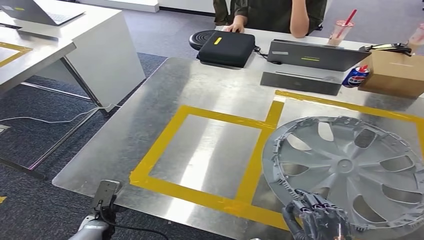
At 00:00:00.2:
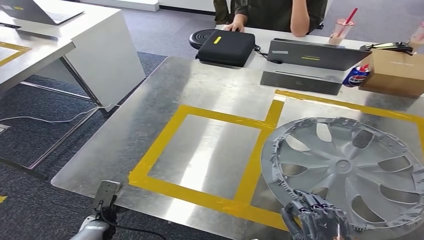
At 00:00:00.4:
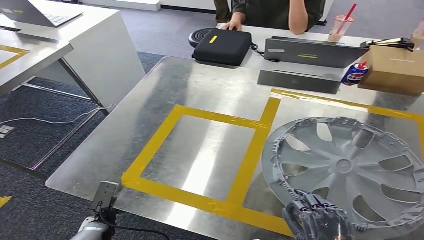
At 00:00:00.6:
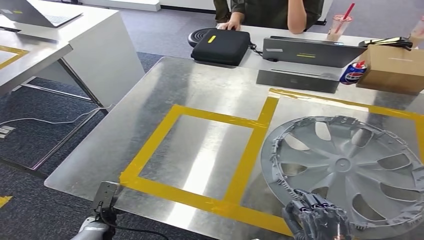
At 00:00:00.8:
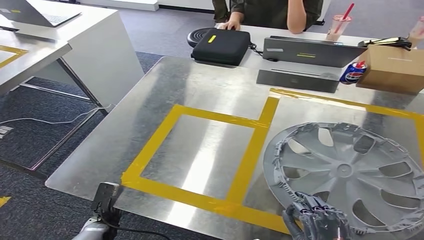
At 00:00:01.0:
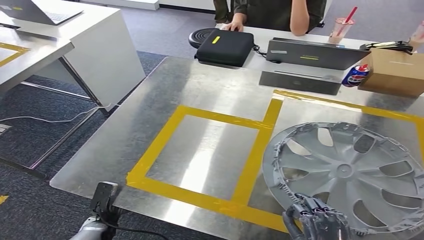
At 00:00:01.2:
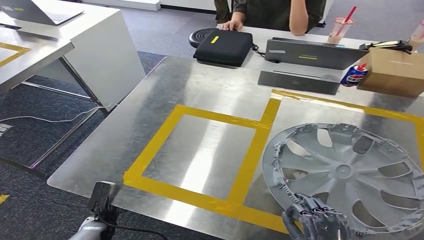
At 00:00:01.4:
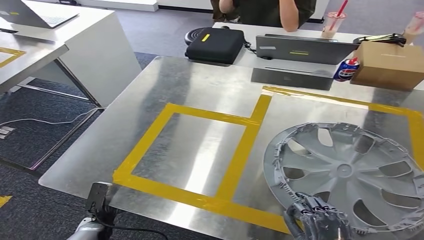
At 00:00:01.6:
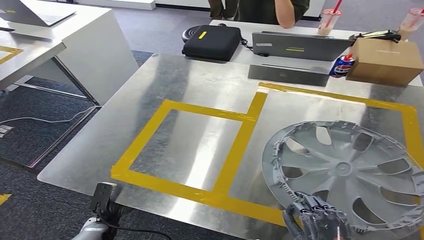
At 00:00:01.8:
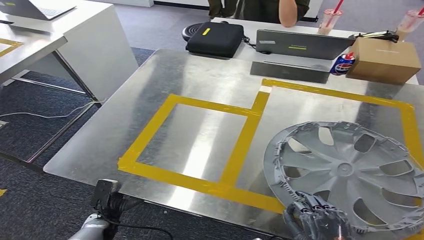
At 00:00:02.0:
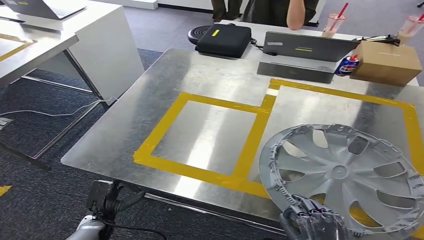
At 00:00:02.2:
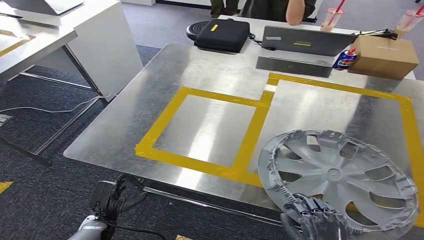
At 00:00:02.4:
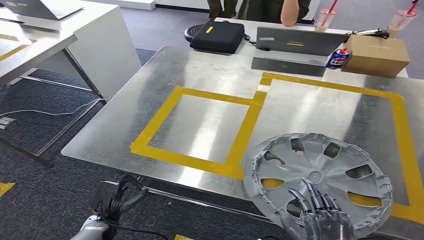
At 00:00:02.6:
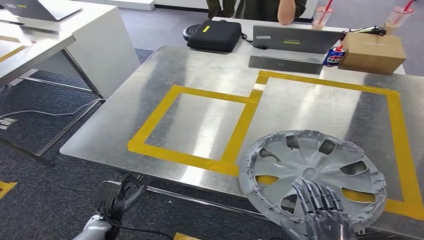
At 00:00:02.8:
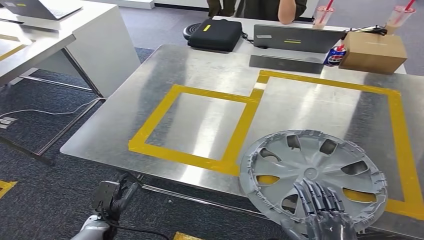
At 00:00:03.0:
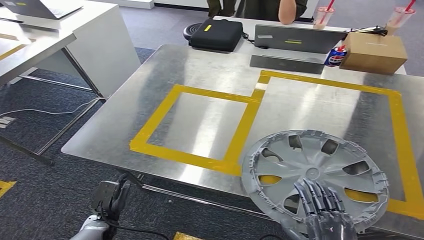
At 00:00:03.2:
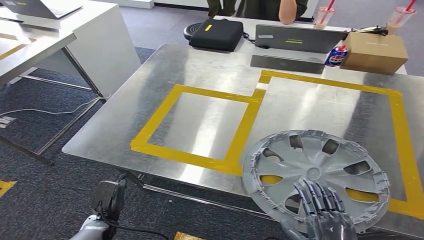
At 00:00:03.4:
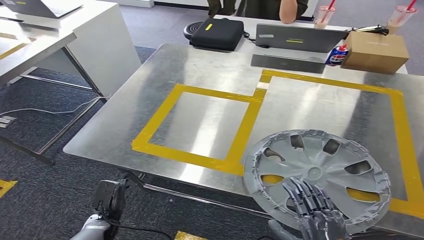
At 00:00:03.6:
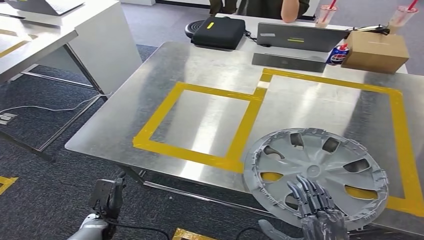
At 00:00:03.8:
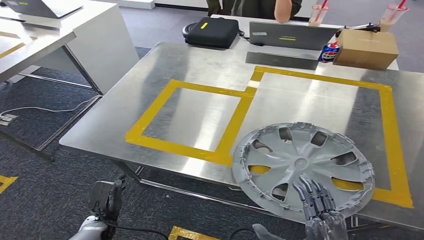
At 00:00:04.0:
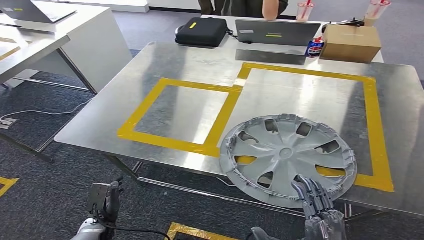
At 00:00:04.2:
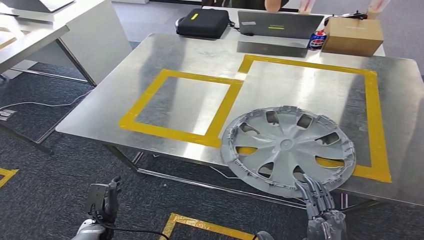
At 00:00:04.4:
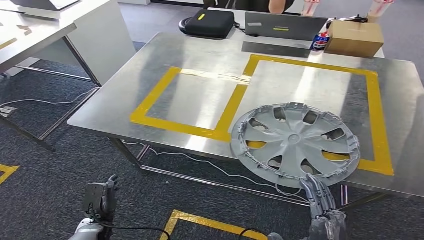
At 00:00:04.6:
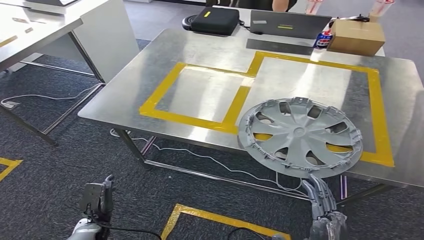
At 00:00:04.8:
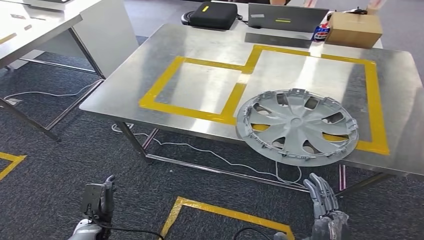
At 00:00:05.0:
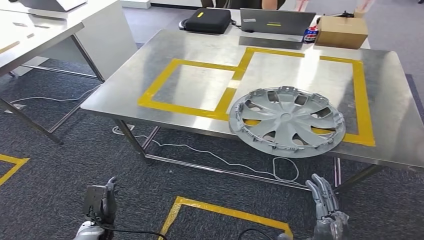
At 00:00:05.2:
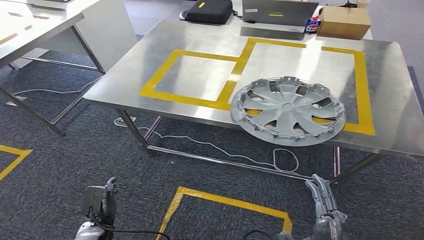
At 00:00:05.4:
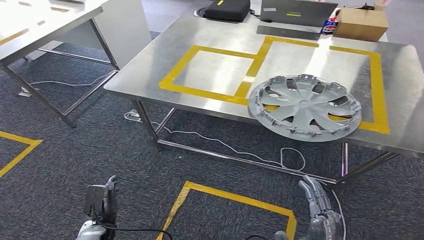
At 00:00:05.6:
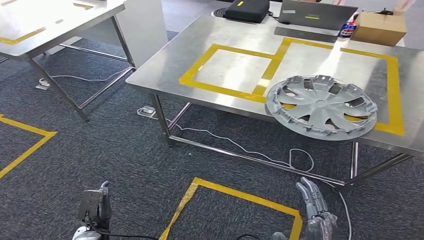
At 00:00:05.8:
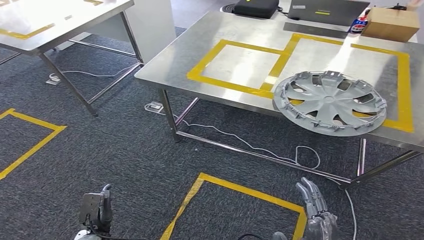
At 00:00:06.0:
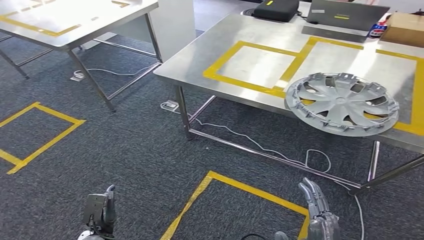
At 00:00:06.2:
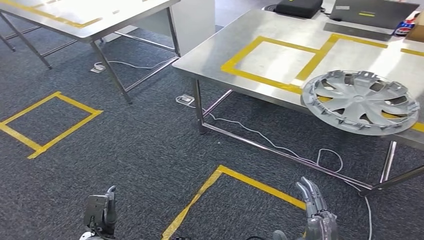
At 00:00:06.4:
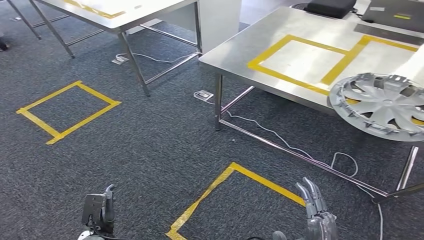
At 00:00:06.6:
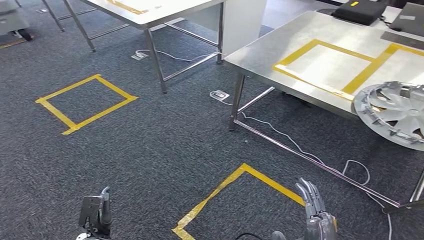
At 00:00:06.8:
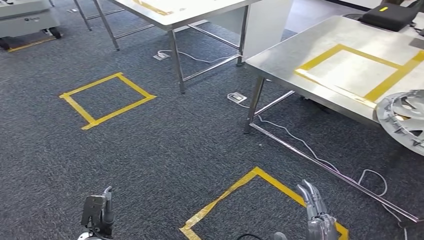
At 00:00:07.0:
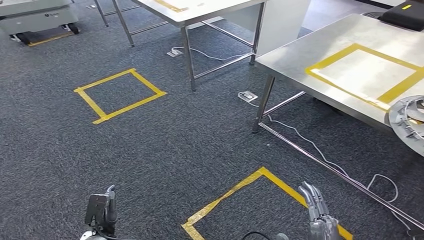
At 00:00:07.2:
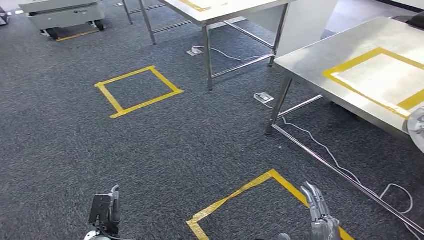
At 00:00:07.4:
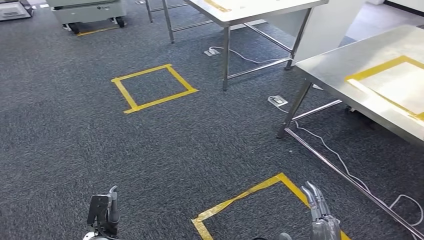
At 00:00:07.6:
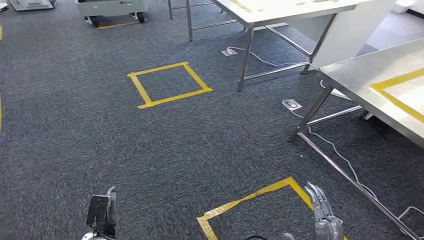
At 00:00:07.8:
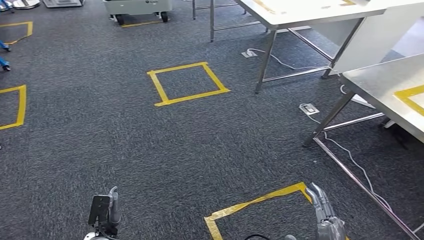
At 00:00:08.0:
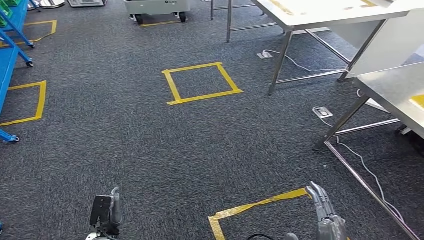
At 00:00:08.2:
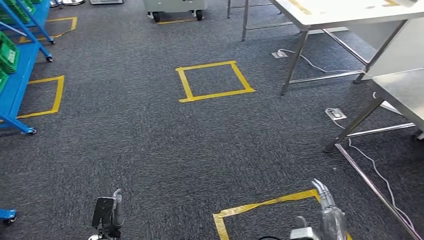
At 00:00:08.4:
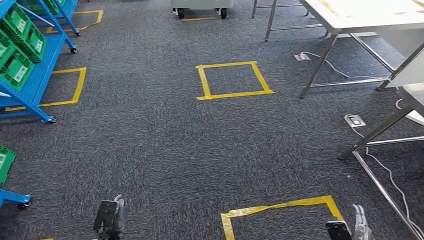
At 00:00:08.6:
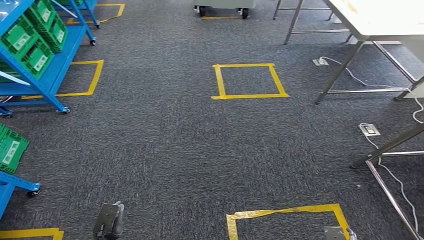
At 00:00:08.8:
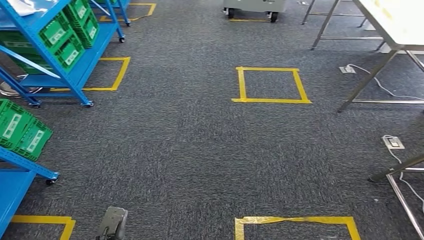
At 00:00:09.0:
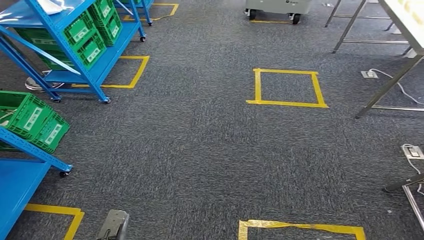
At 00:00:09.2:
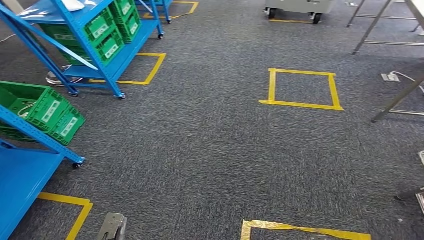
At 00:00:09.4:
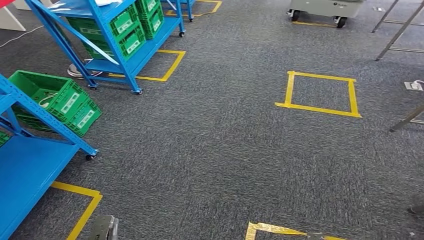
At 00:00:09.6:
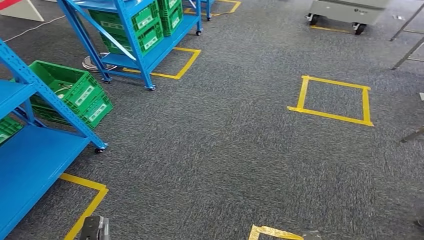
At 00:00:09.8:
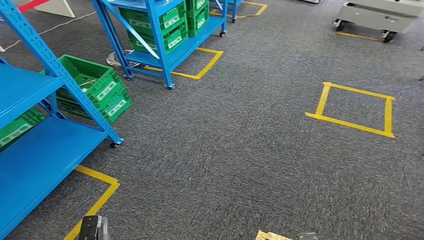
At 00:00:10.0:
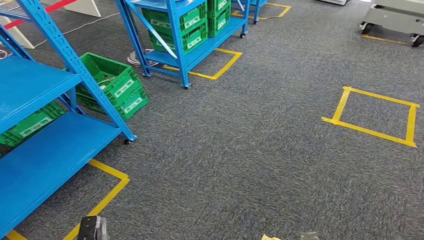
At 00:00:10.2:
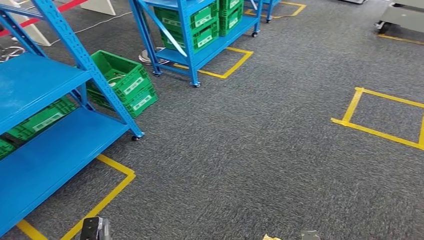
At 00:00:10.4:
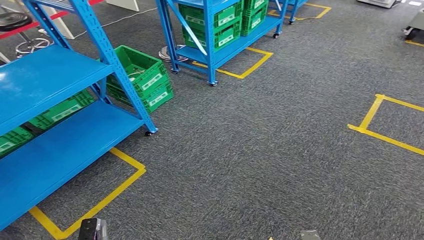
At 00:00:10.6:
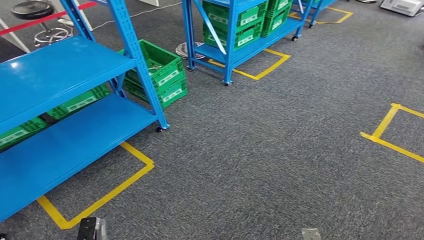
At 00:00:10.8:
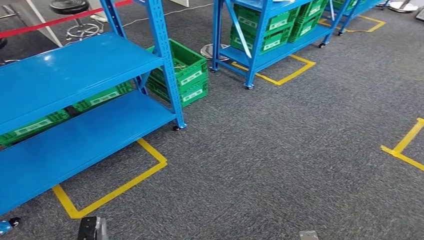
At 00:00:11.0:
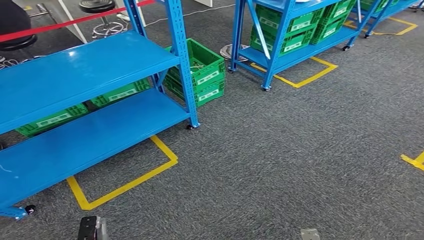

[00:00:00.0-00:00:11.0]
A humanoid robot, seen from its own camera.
Step, 00:00:00.0 to 00:00:06.0: Insert the small component into the corresponding slot on the workbench.

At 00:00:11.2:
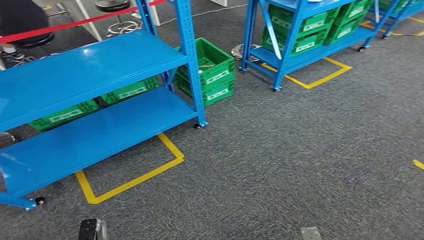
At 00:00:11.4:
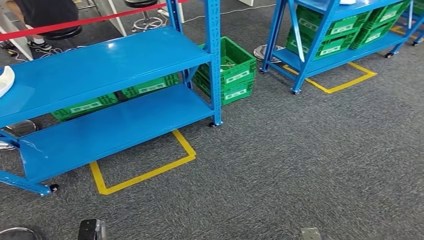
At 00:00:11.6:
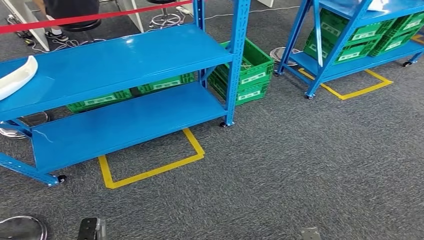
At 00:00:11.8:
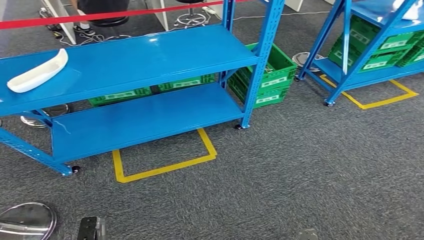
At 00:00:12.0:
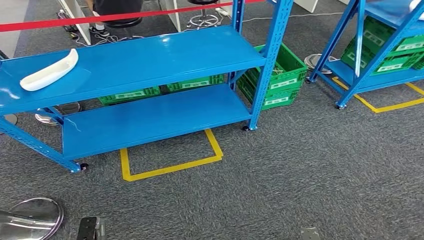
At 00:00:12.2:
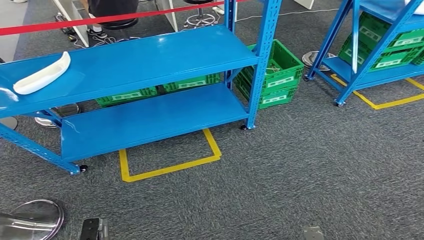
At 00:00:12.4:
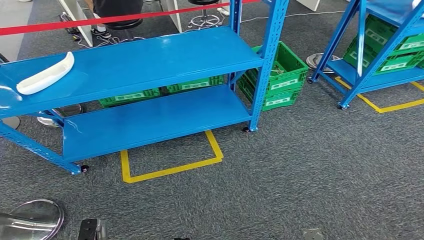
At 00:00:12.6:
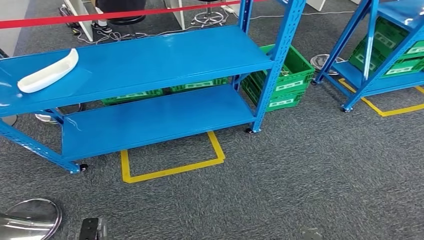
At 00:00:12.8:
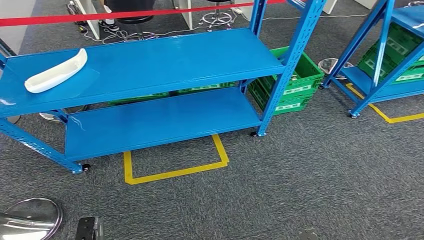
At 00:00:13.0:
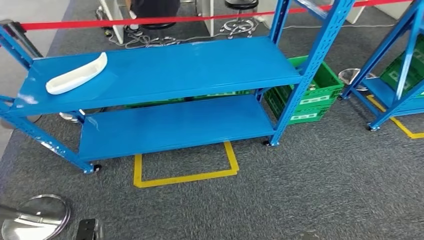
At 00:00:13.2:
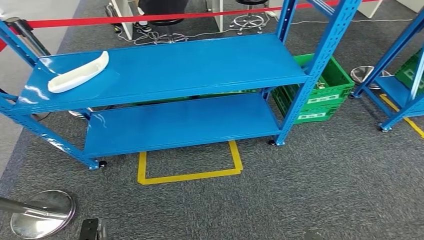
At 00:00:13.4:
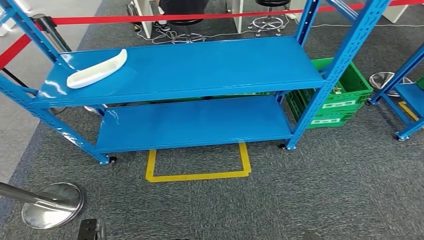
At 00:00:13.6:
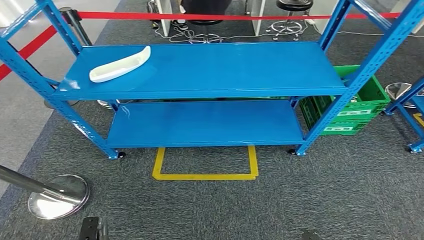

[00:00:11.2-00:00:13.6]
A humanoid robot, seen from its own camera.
Step, 00:00:11.2 to 00:00:13.6: Return to the initial position at the workbench.
